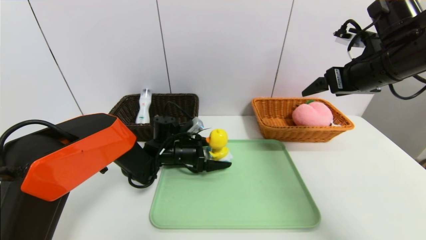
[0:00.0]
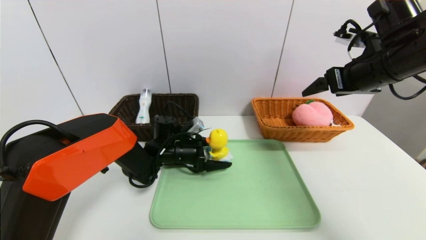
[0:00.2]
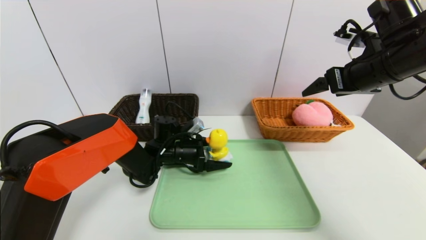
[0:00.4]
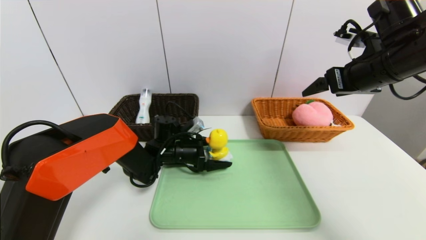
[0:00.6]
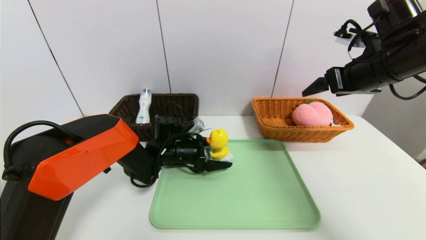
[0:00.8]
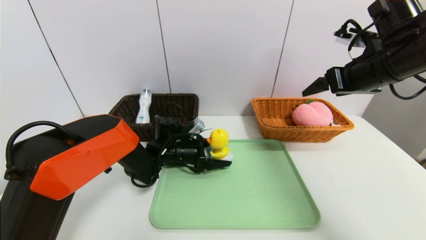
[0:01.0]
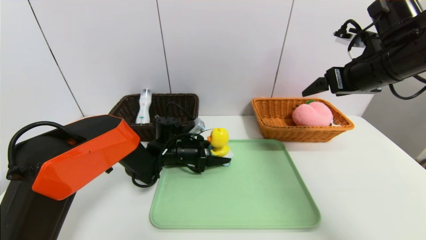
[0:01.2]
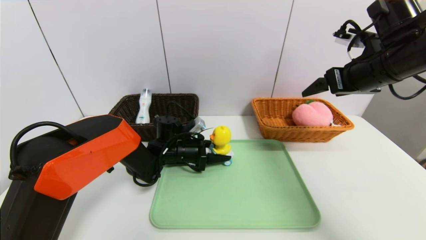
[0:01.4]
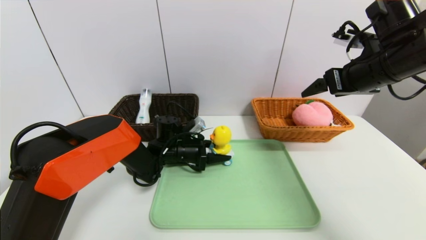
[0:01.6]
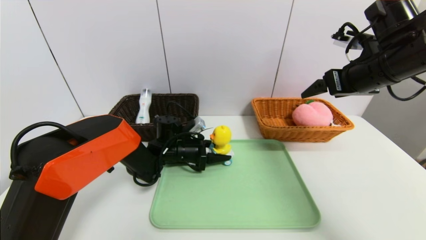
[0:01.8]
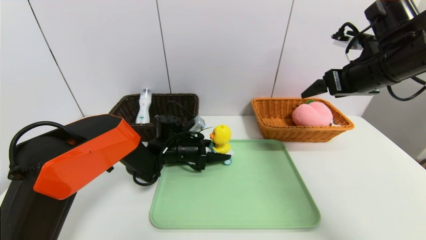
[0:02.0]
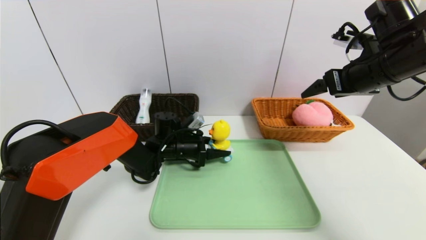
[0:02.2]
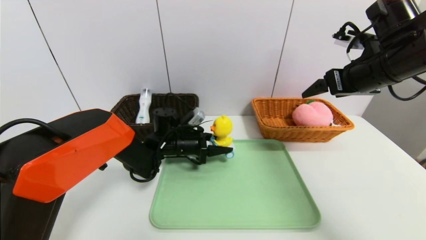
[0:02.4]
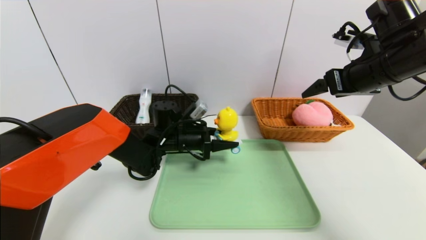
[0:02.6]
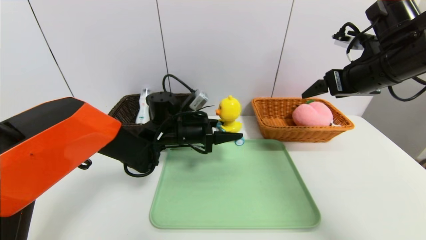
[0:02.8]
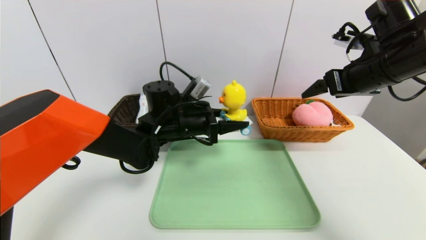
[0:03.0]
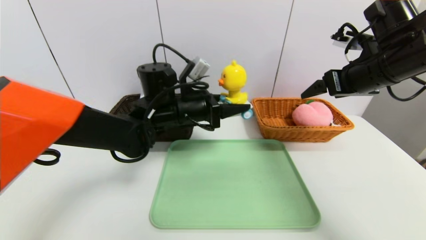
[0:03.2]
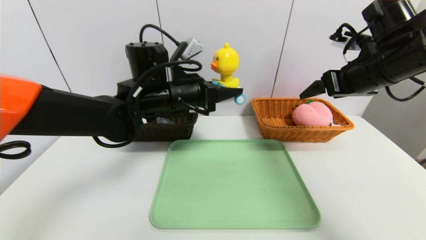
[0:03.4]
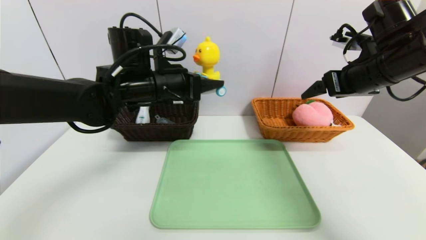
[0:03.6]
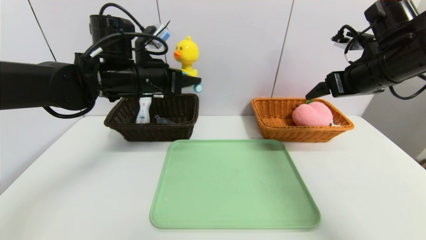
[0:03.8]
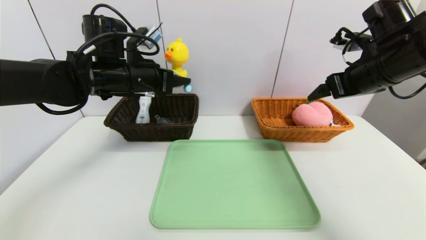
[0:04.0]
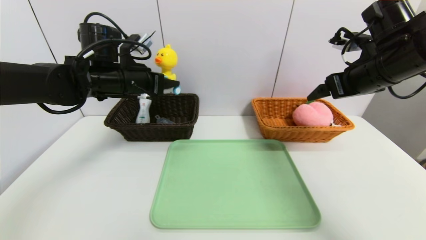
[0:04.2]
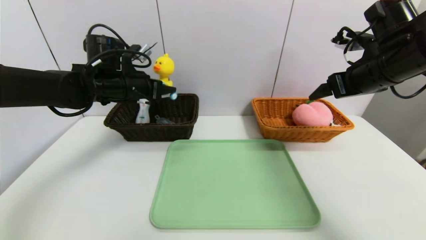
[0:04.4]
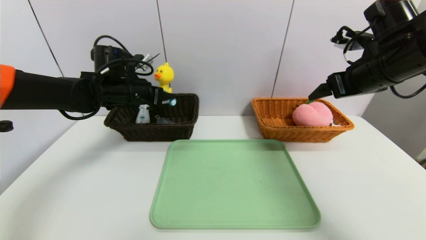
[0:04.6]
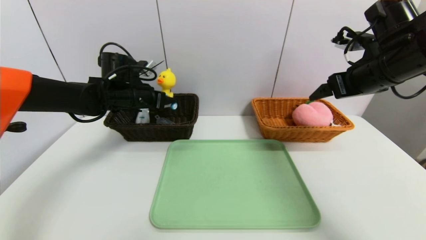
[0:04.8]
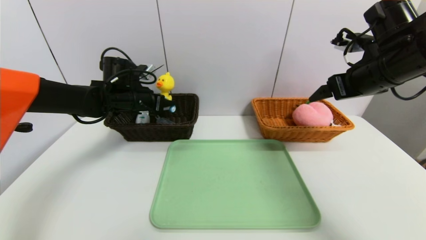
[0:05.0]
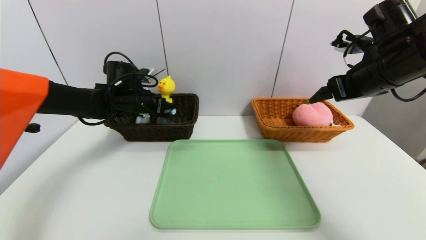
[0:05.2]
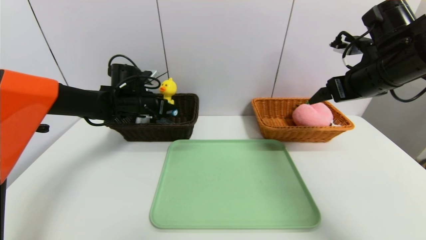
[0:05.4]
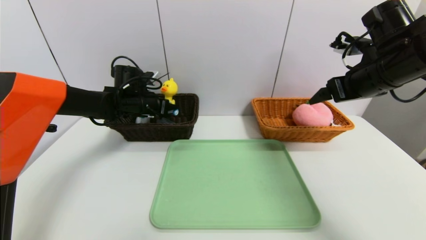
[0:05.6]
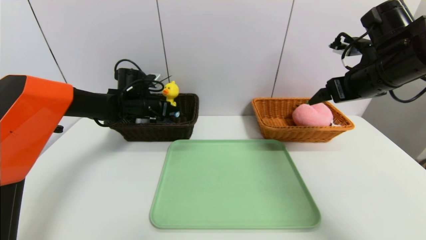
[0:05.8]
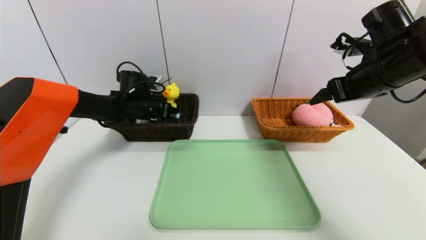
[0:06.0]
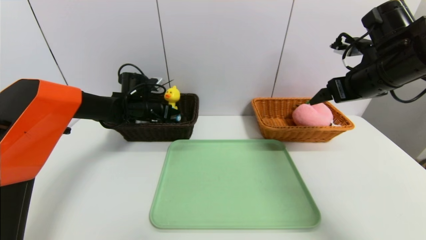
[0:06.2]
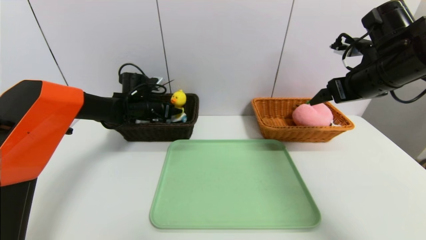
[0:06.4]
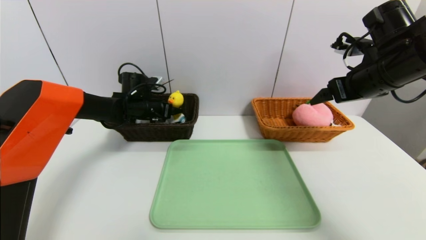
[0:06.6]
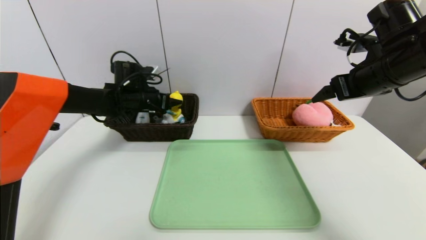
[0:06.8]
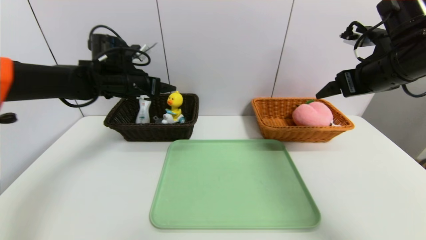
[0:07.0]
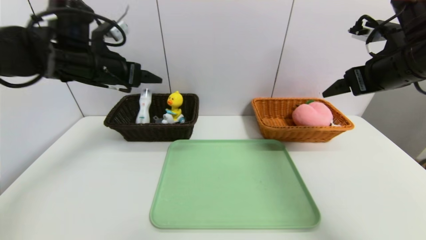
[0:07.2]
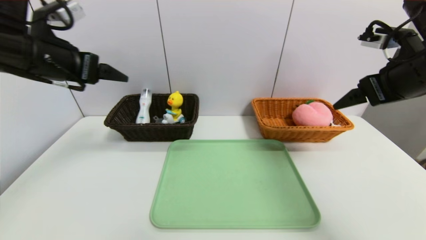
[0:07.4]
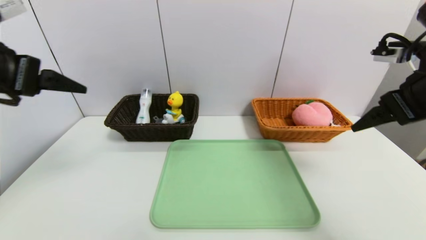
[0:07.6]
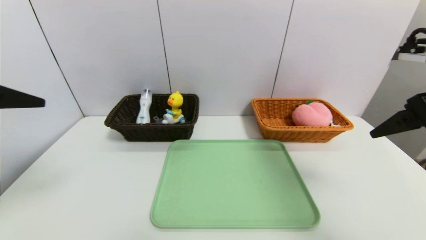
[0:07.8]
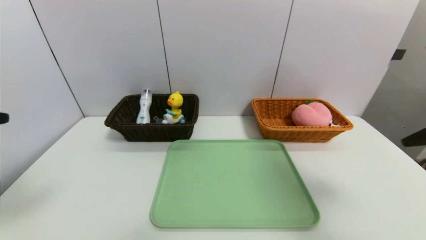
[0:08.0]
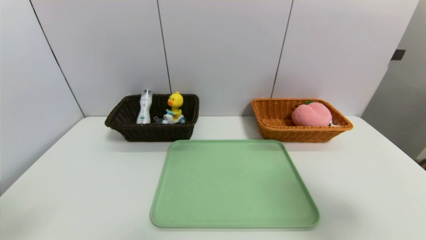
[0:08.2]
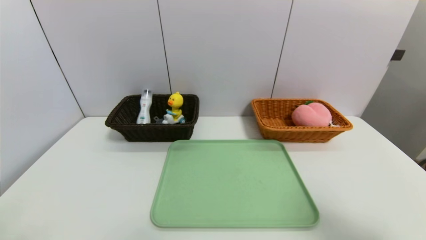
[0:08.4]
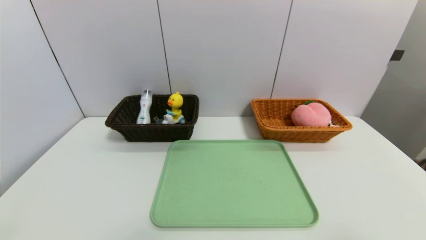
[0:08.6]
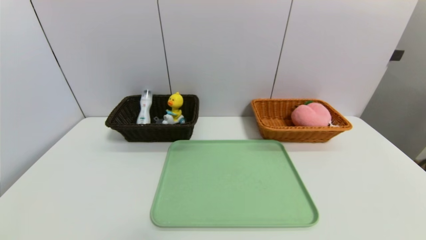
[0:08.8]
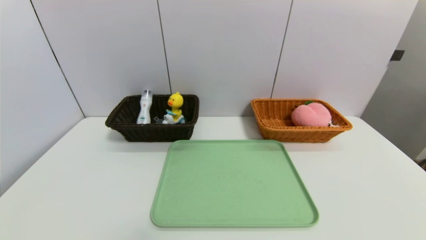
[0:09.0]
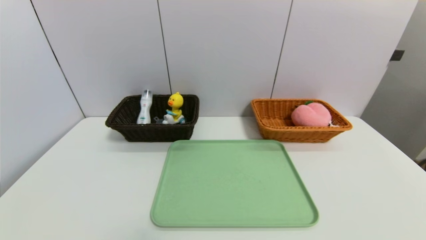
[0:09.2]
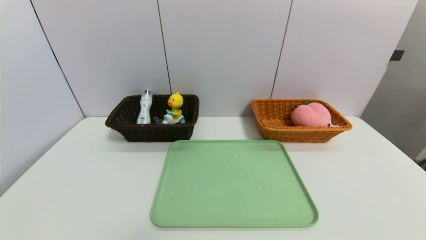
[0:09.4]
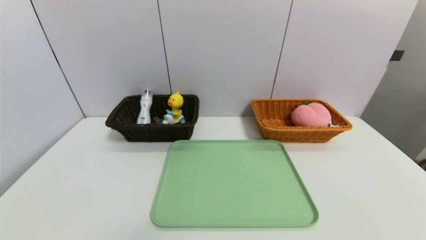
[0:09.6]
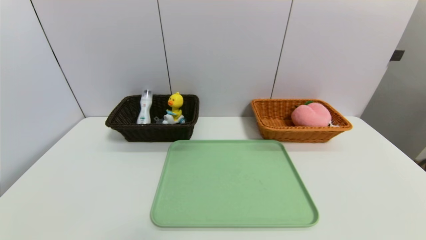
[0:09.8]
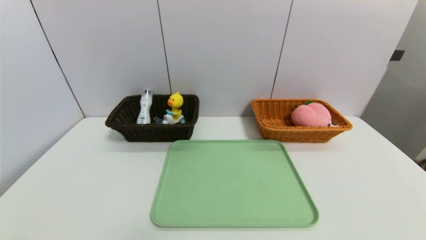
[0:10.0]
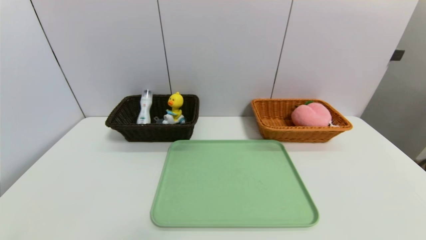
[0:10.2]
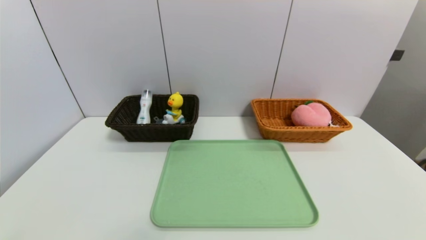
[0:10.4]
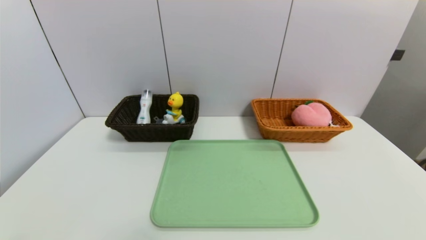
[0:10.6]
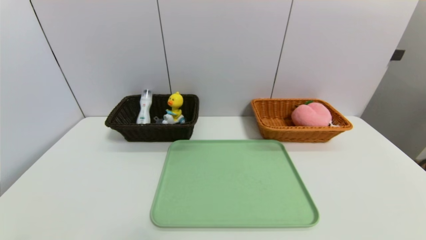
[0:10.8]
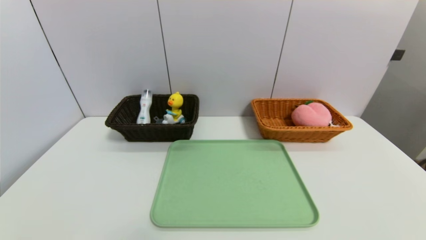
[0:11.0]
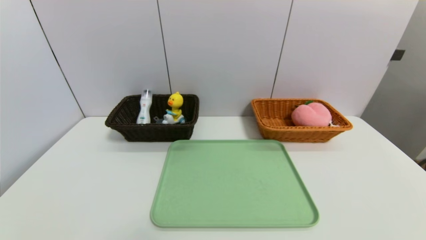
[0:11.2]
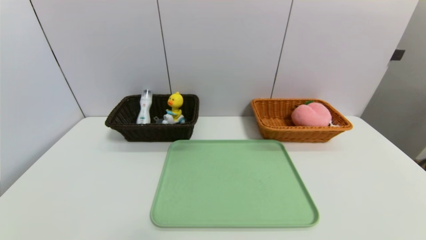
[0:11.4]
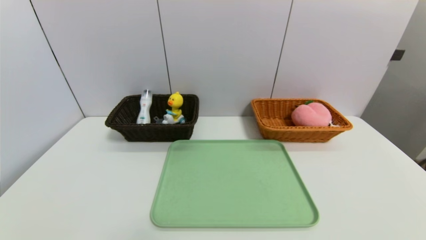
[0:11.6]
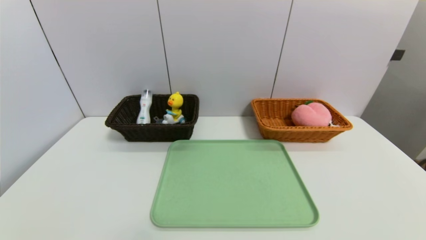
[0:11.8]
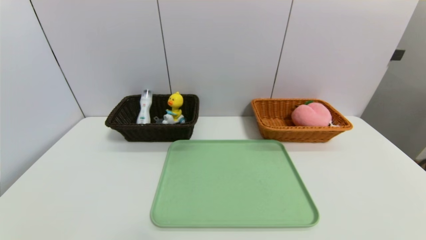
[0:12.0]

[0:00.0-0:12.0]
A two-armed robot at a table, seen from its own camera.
Task of the whole recording: place the food in the right basket with the right gripper, and place the non food items in the left basket with the left gripper.
Step, 0:00.0 to 0:06.6: Grasp the yellow duck and put it in the left basket.
0:00.0 to 0:01.6: The left gripper closes up.
0:01.6 to 0:03.0: The left gripper moves upward, some 15 cm.
0:03.0 to 0:04.4: The left gripper heads to the left and upward, covering approximately 15 cm.
0:04.4 to 0:06.0: The left gripper is displaced downward and forward by roughly 10 cm.
0:06.0 to 0:07.6: The left gripper travels backward and upward by some 35 cm, and opens. Meanwhile the right gripper heads backward, covering roughly 10 cm.
0:07.6 to 0:09.0: The grippers both shift backward and downward by roughly 30 cm.

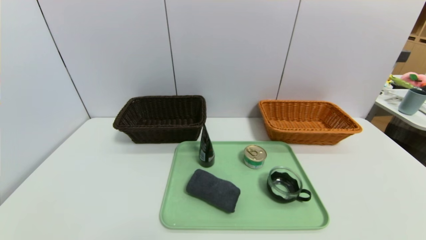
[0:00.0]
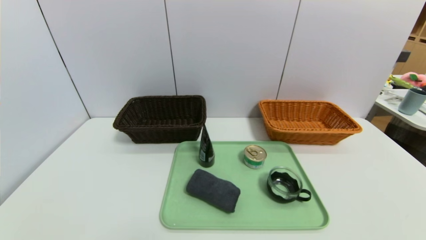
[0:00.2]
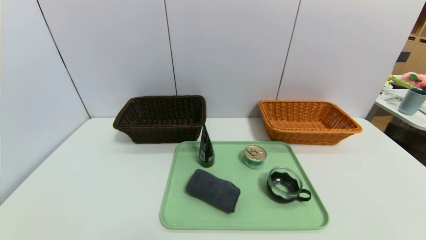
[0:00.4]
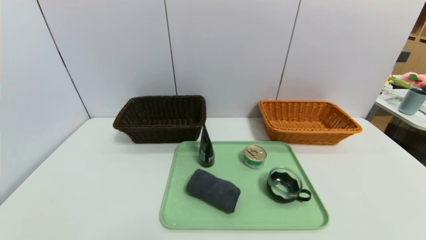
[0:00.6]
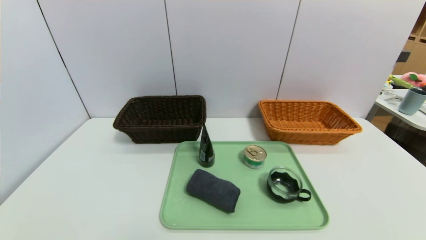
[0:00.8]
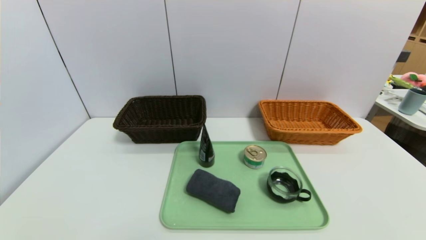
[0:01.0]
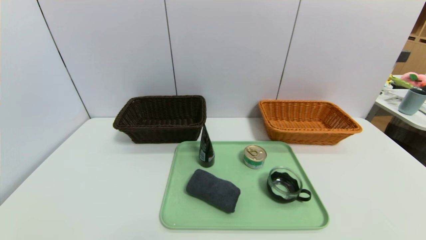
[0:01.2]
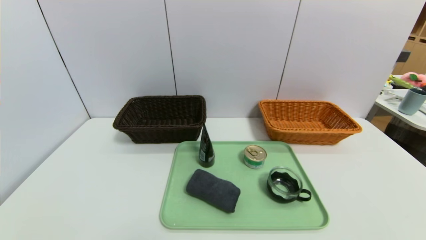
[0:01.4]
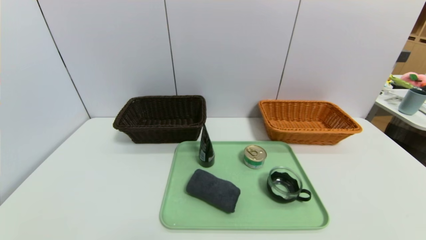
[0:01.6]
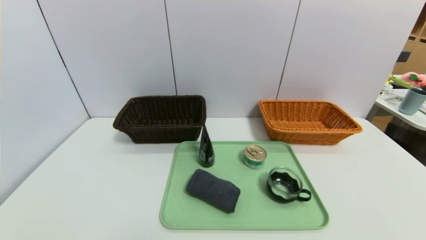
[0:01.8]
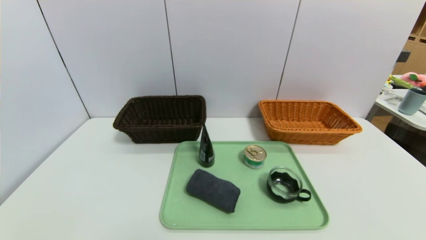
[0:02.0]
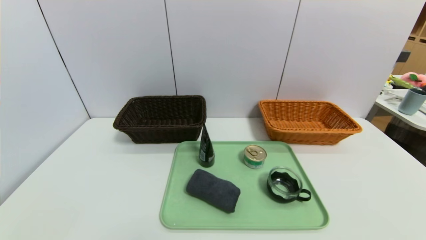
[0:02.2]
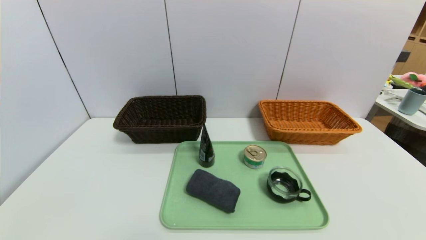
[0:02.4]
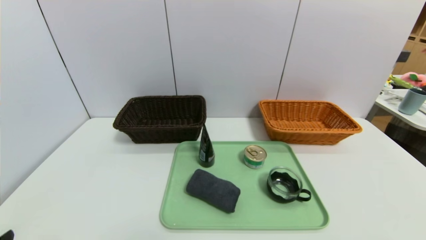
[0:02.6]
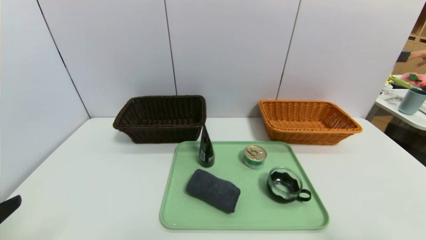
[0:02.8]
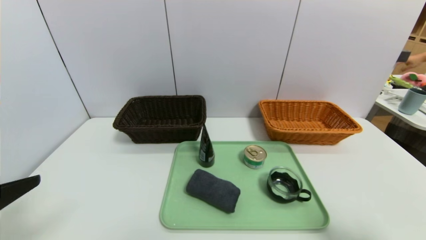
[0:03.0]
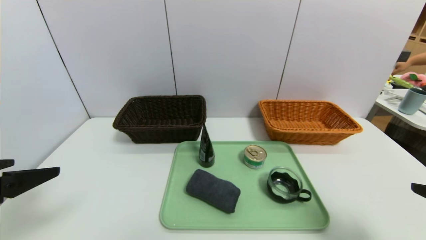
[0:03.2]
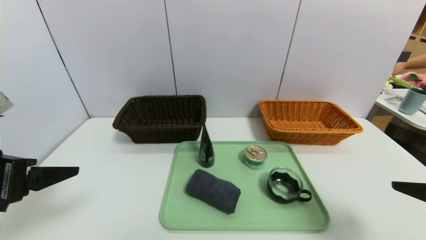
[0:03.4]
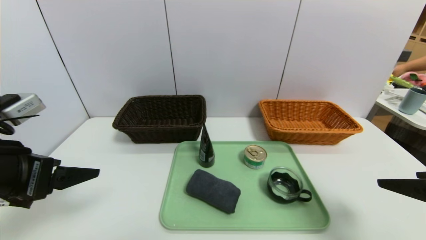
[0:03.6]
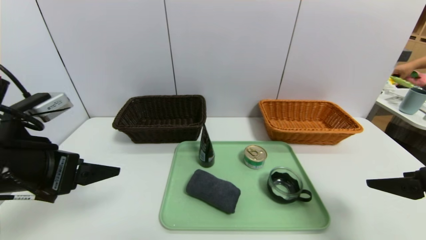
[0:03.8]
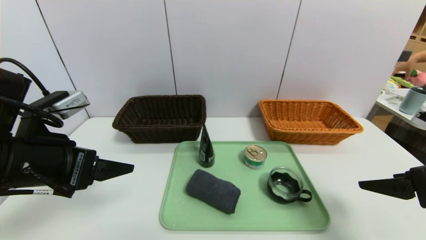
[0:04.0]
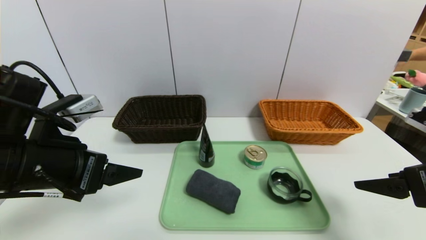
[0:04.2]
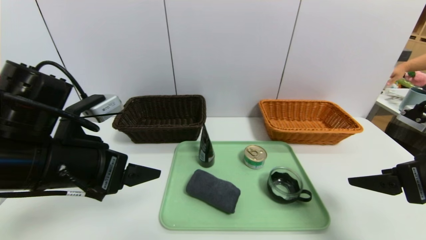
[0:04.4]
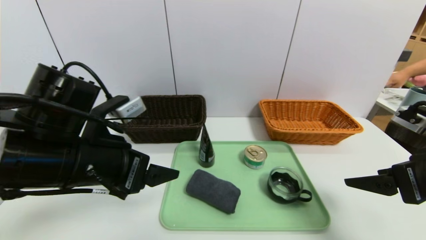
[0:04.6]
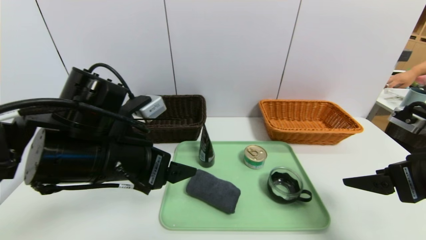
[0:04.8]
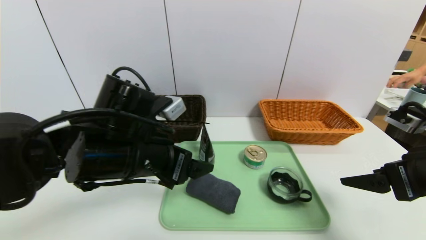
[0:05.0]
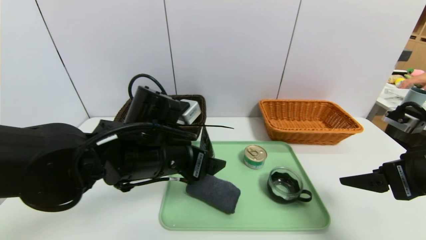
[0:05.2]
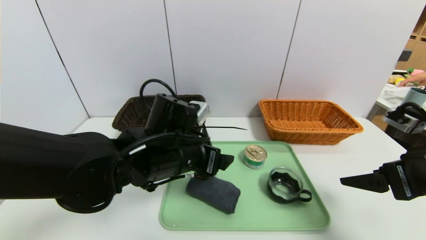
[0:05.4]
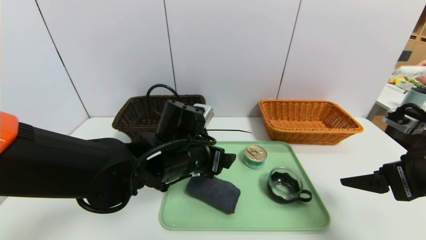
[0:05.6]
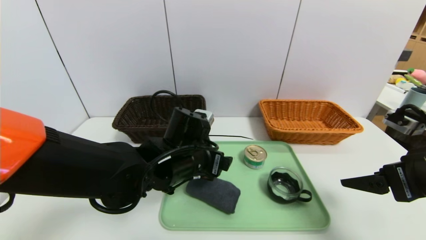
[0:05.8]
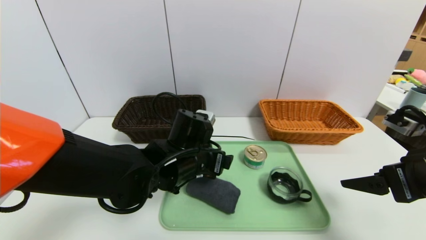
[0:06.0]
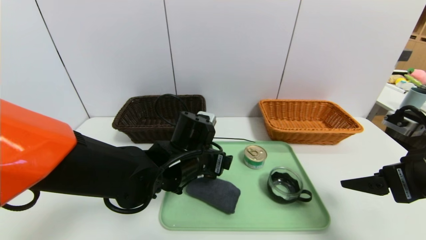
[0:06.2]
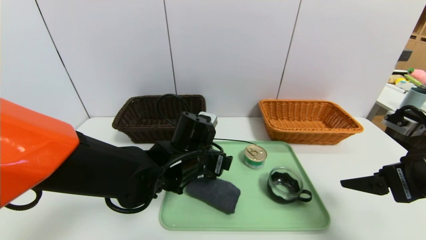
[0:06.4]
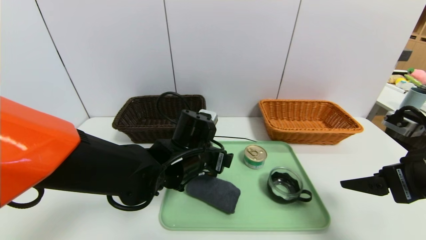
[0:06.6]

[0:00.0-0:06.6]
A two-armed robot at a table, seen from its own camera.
Task of the whole recording: place the food in the right basket with the right gripper, and place the non food items in the left basket with the left gripper.
0:00.0 to 0:01.6: The two grippers keep their place.
0:01.6 to 0:03.2: The grippers both shift upward and forward by approximately 20 cm.
0:03.2 to 0:05.0: The left gripper goes some 20 cm to the right and forward; the right gripper is displaced forward by approximately 10 cm.
0:05.0 to 0:06.6: The left gripper is displaced to the right, downward and forward by some 10 cm.
